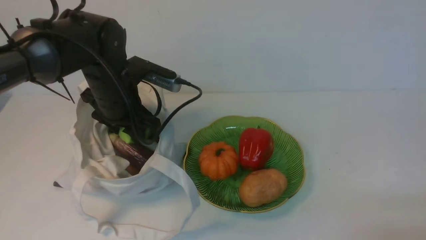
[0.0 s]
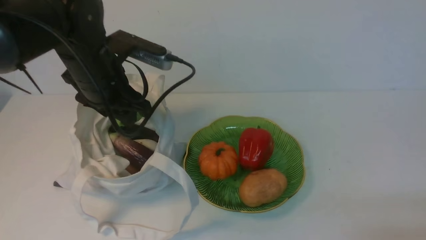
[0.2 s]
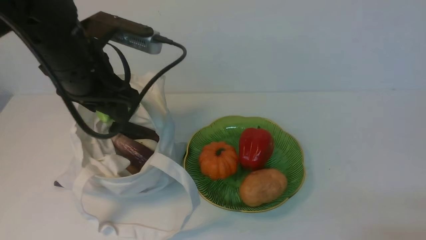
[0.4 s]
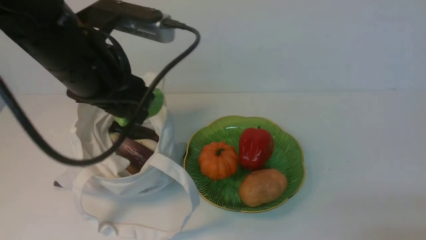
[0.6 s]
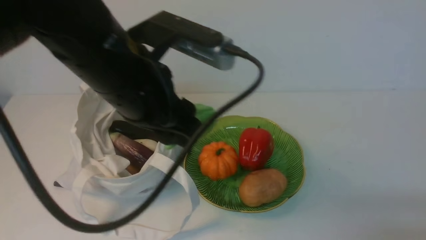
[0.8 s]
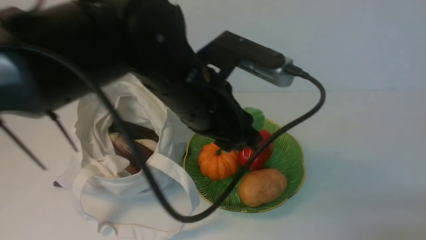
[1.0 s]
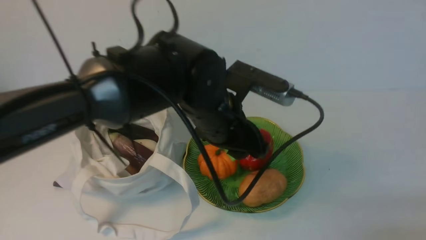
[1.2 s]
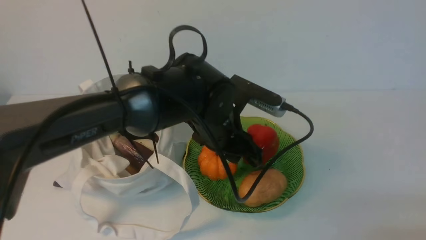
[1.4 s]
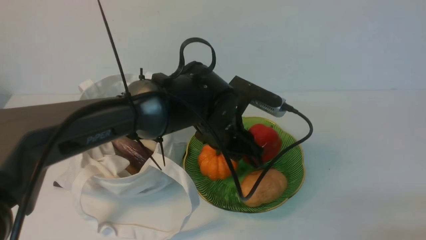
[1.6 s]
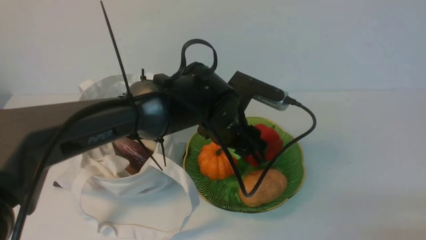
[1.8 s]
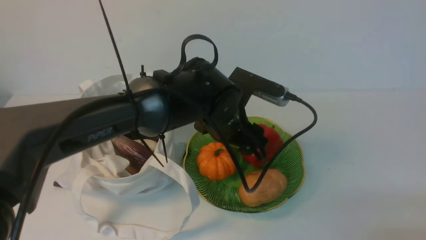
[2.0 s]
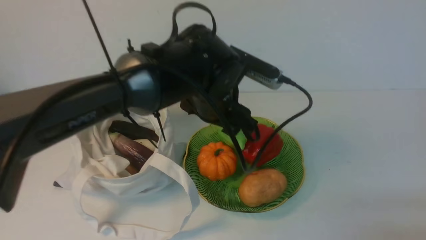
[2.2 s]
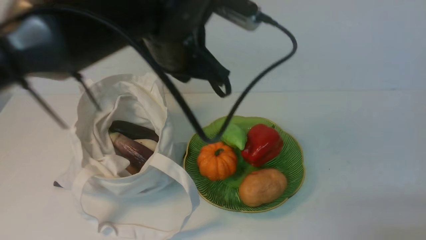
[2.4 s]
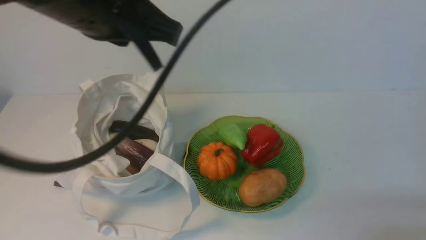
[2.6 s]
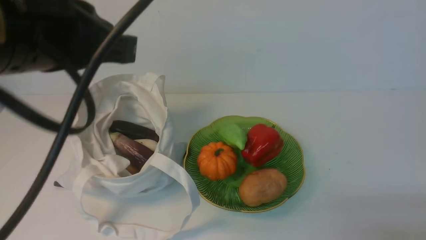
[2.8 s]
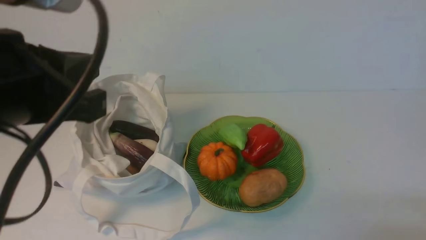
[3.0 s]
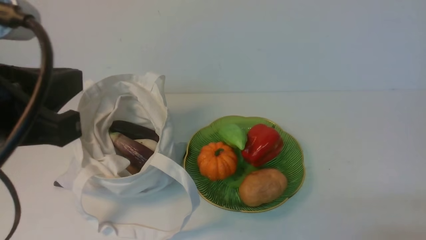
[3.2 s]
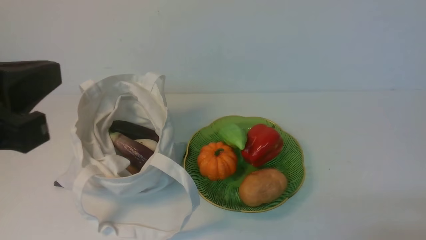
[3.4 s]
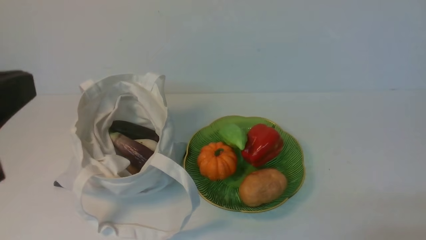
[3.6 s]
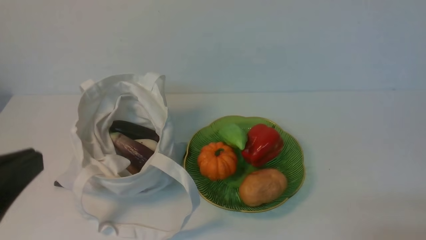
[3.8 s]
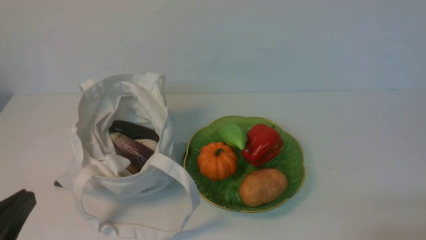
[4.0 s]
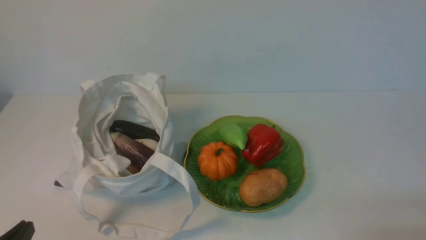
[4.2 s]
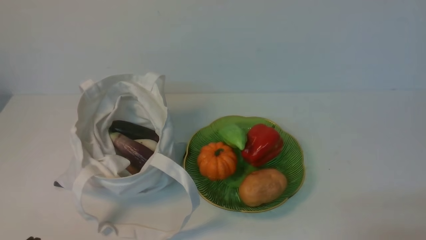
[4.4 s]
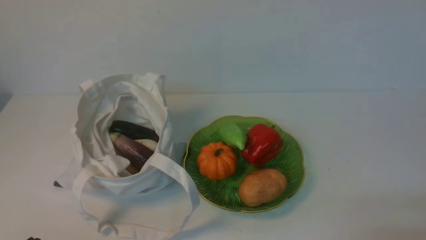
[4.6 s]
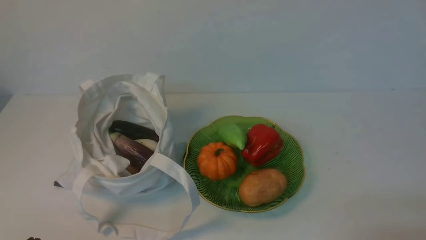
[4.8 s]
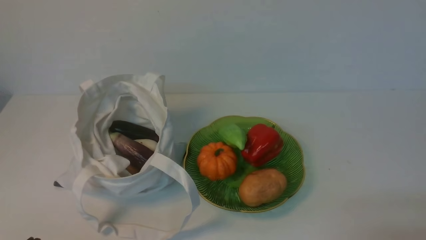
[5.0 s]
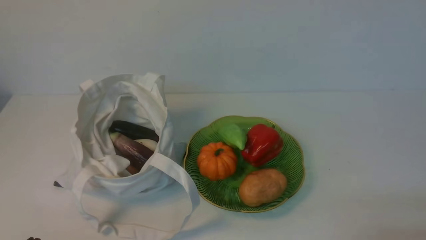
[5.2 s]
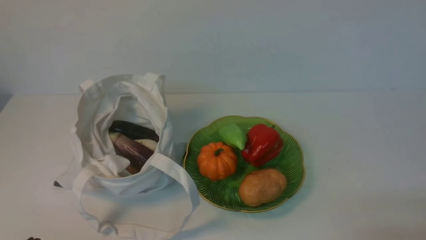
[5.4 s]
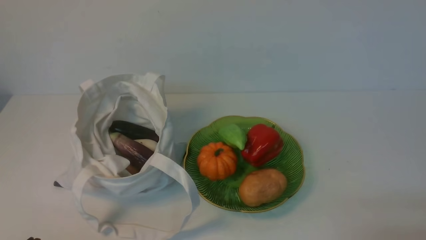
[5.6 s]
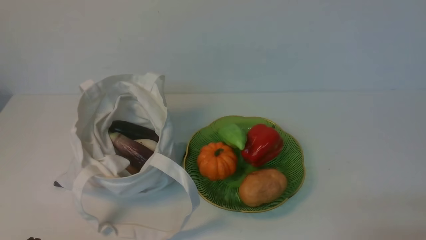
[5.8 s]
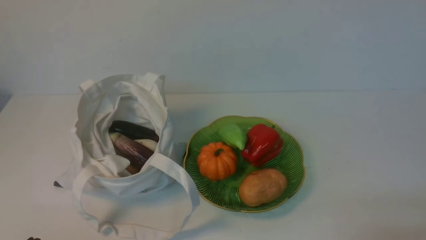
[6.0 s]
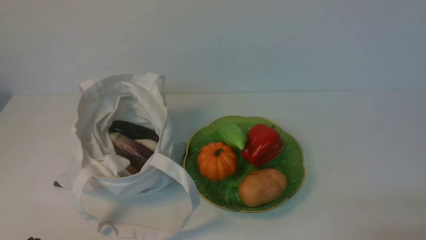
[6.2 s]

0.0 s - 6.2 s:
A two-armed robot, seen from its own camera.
Task of the whole recording: take vegetables from cloth bag on white table place on plate.
Step, 0.0 s - 2.2 s: Place the bitter melon on the plate with left gripper.
0.0 s - 1.6 s: The left gripper heads to the right, covering about 15 cm.
1.6 s - 3.2 s: The left gripper goes about 30 cm backward, to the left and upward, and closes up.
3.2 s - 4.6 s: The left gripper shifts roughly 25 cm downward.
4.6 s - 6.2 s: Both grippers stay put.

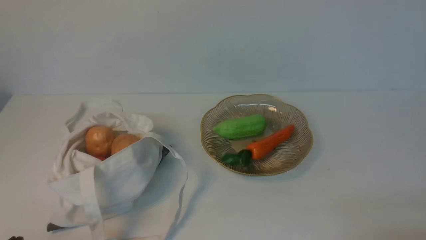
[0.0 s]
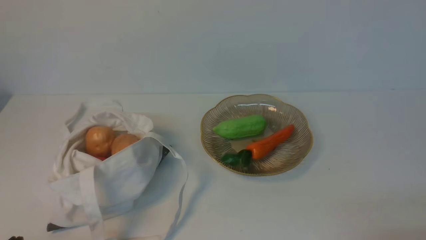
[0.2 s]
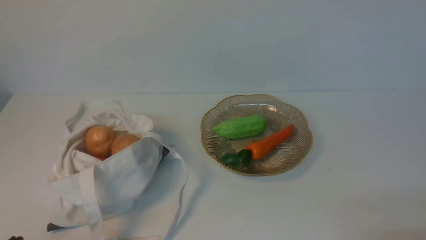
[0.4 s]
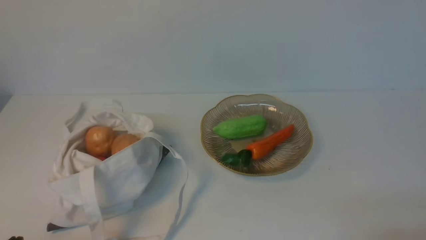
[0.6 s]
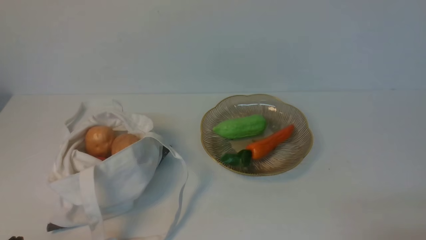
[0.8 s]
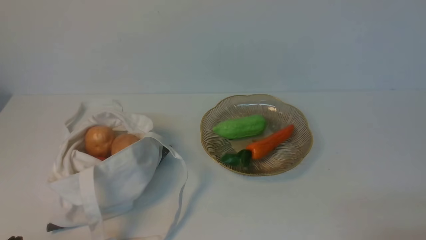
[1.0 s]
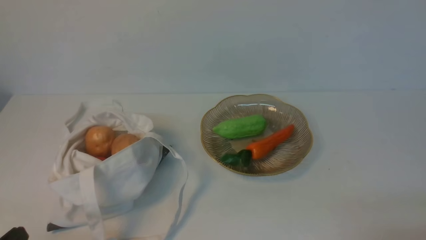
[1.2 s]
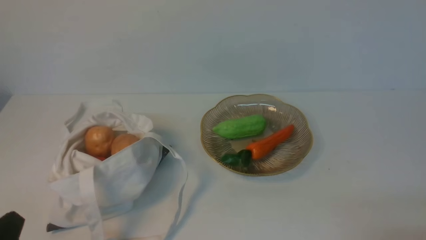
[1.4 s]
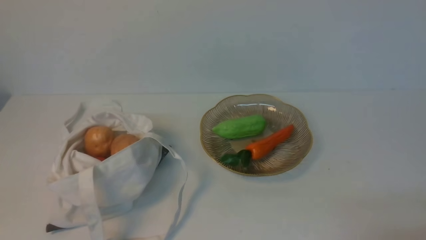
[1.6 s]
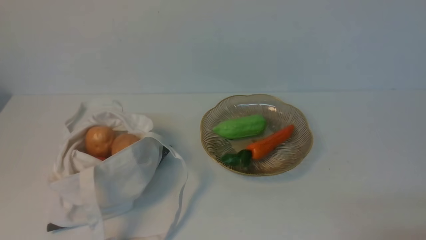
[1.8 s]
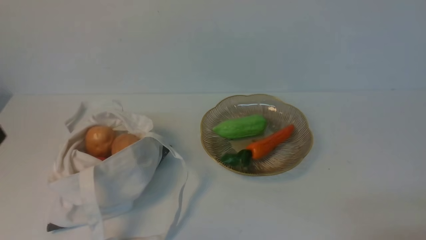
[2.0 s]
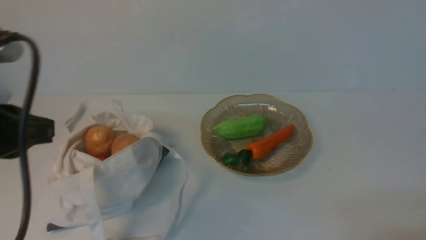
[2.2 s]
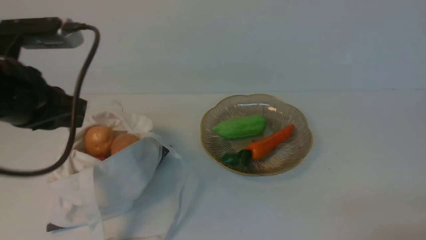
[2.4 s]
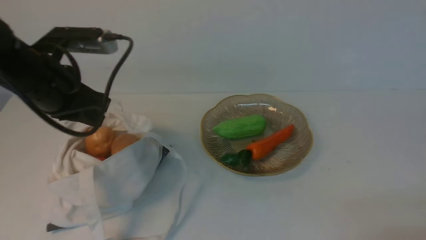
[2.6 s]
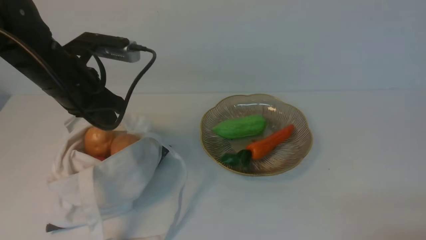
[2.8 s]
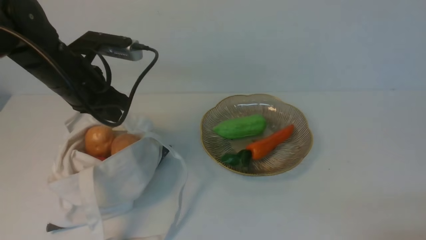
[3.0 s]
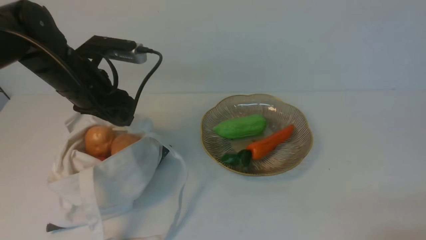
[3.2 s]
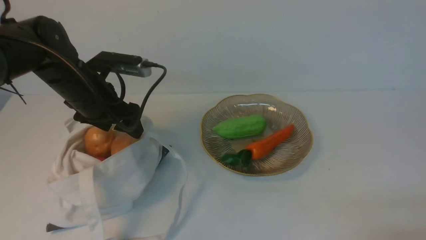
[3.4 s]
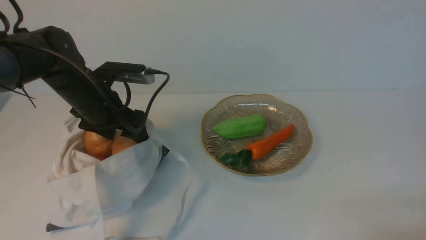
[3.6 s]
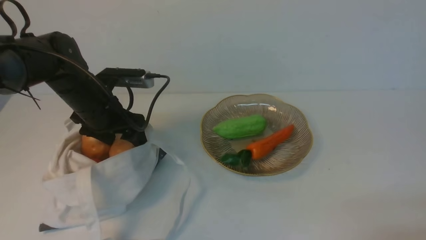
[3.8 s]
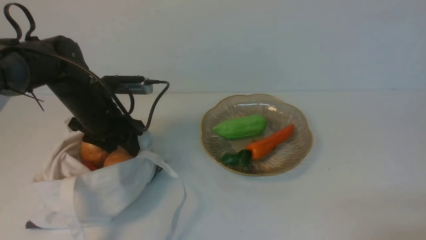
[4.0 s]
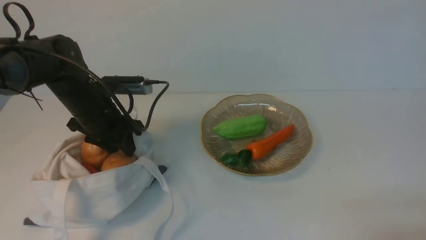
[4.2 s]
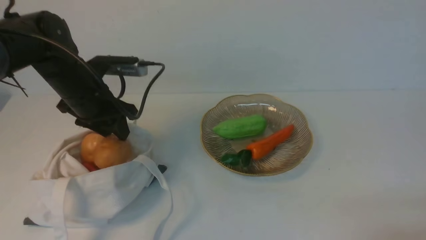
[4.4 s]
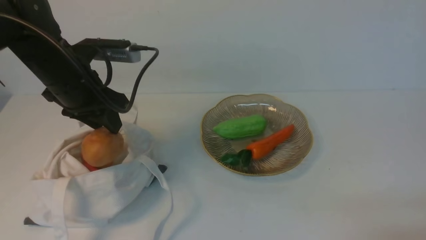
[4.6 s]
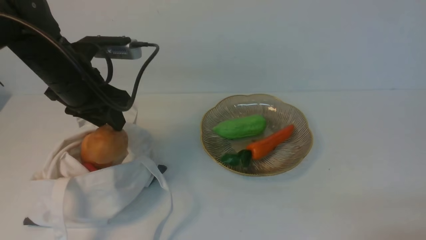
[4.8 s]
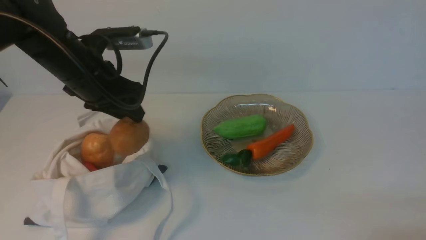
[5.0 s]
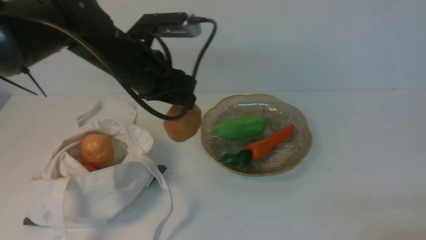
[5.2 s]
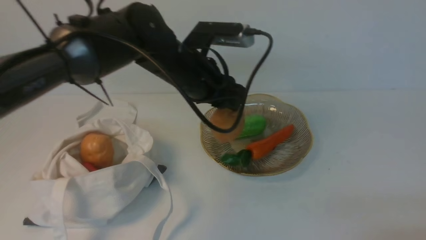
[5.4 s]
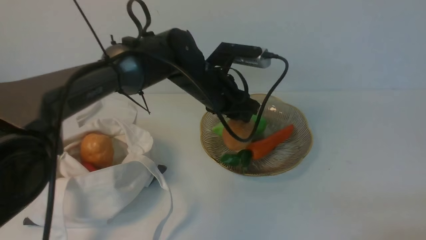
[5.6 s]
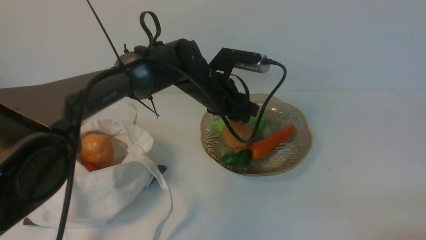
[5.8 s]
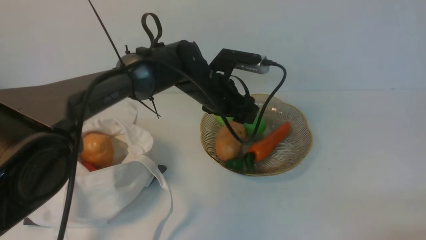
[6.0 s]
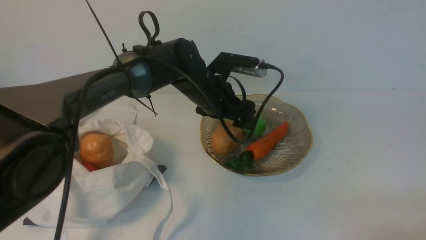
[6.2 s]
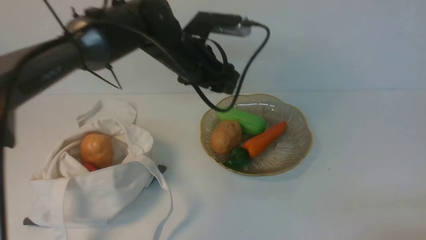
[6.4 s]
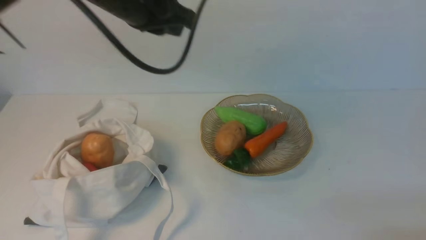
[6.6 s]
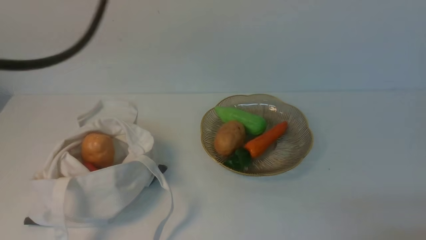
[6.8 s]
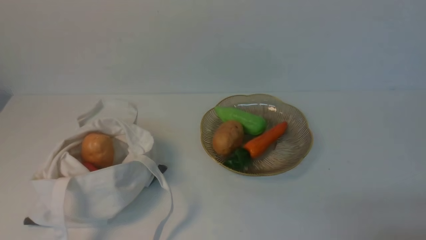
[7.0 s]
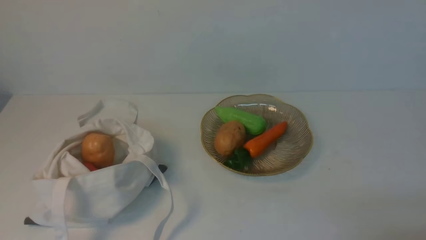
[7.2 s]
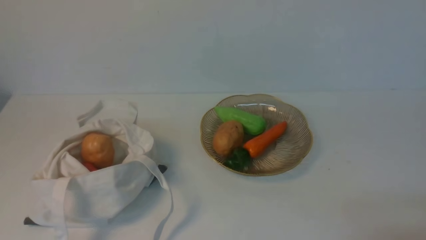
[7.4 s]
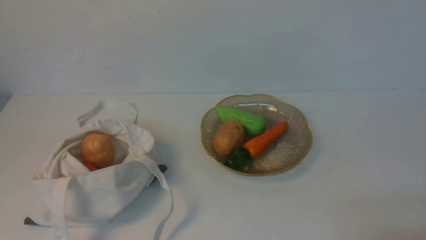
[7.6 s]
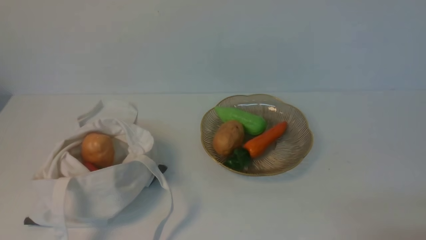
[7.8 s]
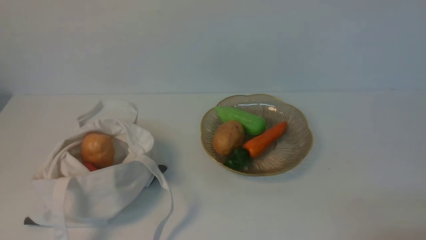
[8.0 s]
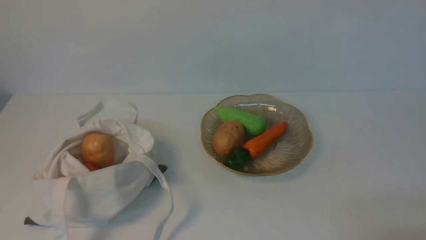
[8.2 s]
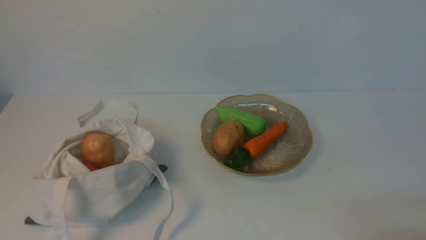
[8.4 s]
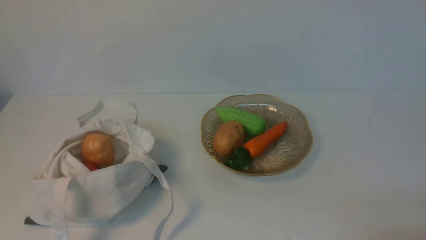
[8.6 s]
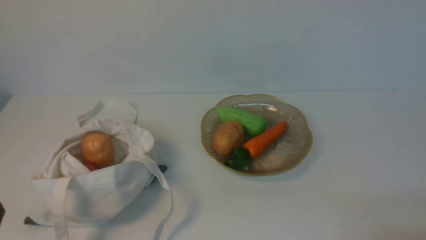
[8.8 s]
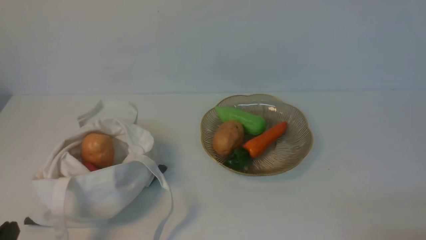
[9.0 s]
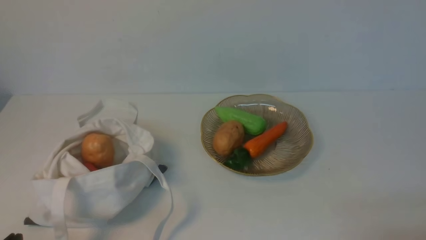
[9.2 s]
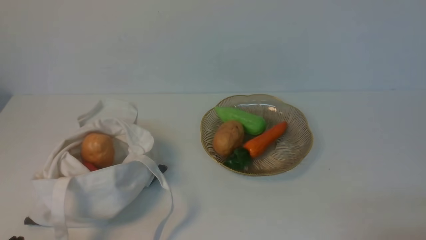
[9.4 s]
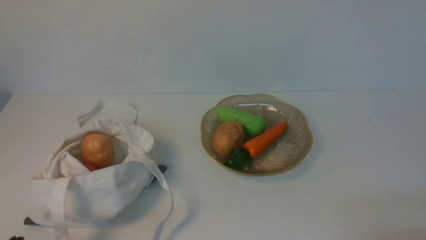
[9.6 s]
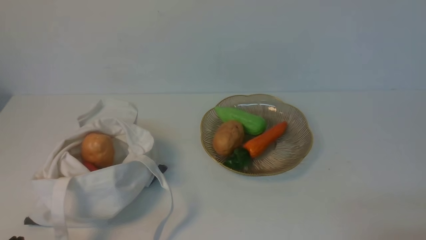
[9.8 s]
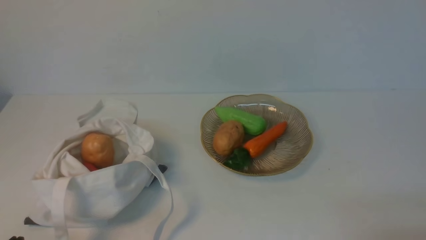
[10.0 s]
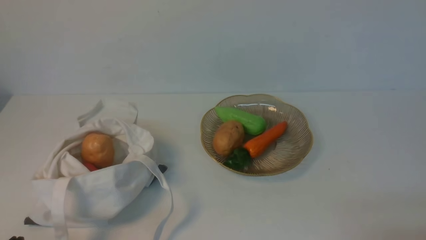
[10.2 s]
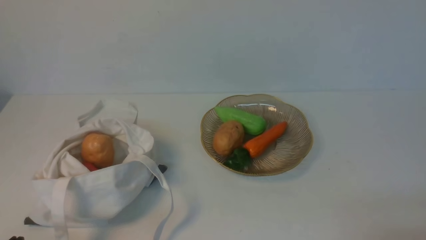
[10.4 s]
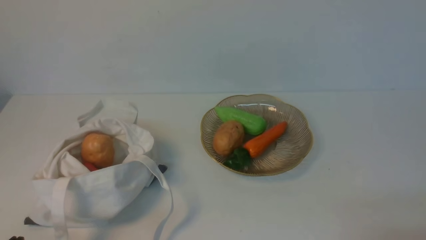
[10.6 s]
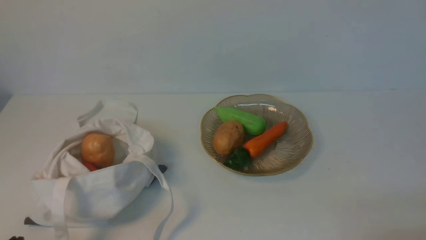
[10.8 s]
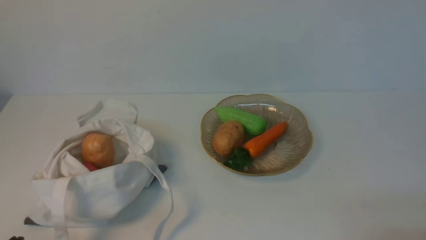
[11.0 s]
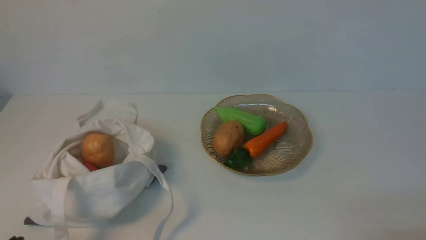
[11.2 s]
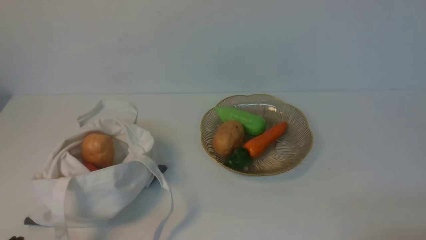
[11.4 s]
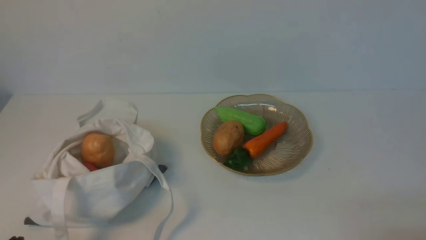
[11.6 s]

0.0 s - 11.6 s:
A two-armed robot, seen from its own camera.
Task of the whole recording: take vegetables from cloth bag on white table place on plate.
Step, 0.0 s - 4.0 s: Grasp the potato with left gripper.
Step, 4.2 s - 6.2 s: Place the potato on the plate with left gripper.
1.4 s - 2.8 s: The left gripper goes about 30 cm forward and upward.
2.8 s - 4.4 s: The left gripper heads downward, covering about 5 cm, and opens up.
4.4 s - 5.8 s: The left gripper moves to the right, roughly 20 cm.
5.8 s - 7.2 s: The left gripper shifts roughly 50 cm backward, upward and to the left, and closes its fingers.
10.2 s - 11.6 s: Both grippers stay put.
